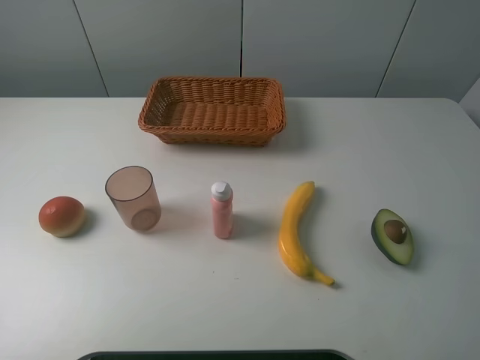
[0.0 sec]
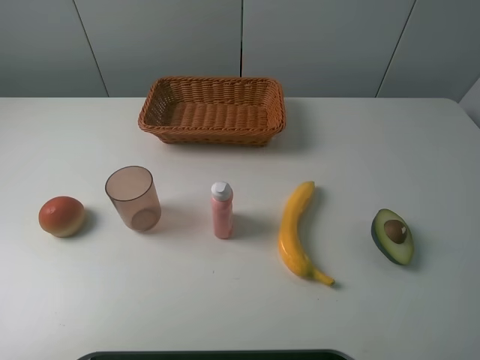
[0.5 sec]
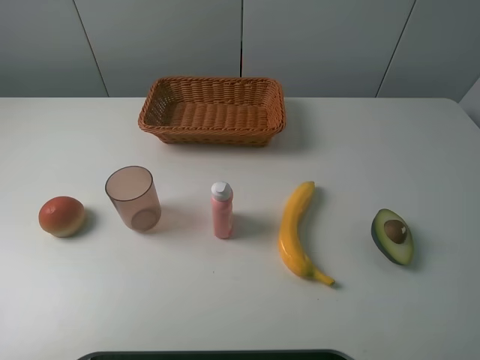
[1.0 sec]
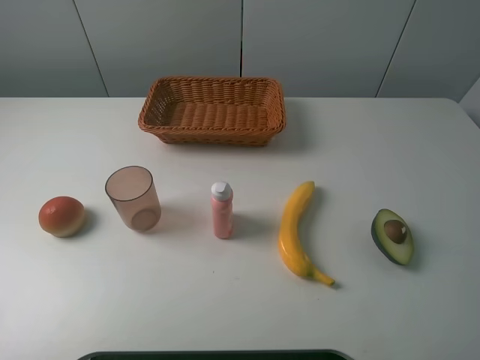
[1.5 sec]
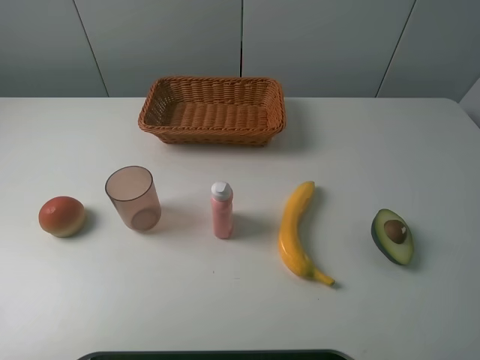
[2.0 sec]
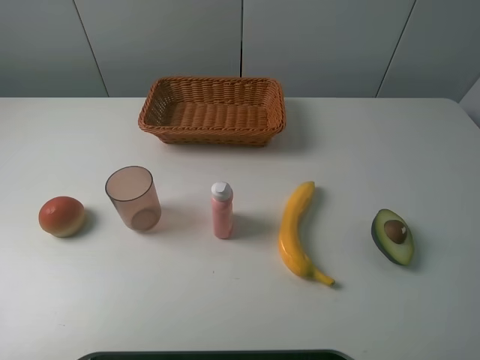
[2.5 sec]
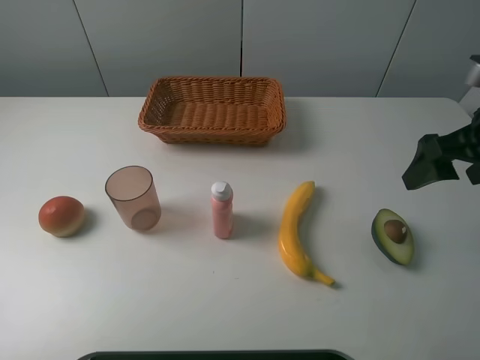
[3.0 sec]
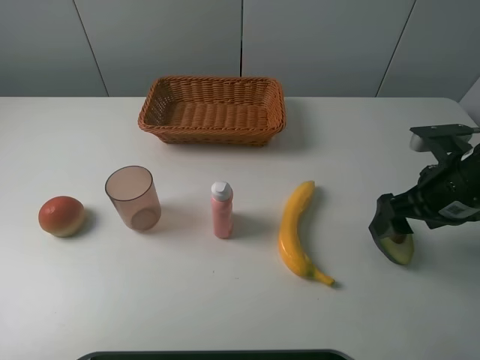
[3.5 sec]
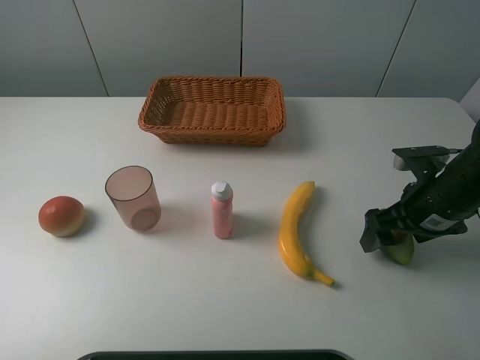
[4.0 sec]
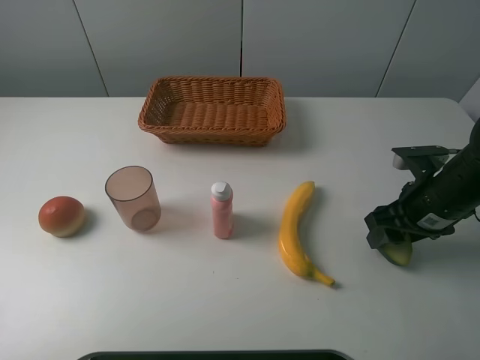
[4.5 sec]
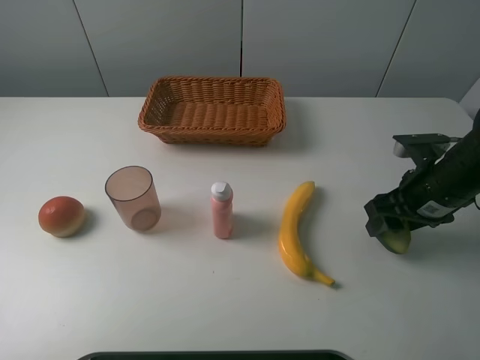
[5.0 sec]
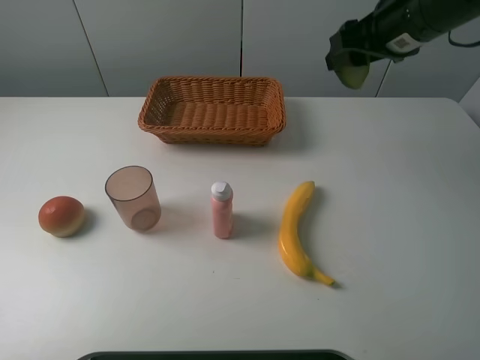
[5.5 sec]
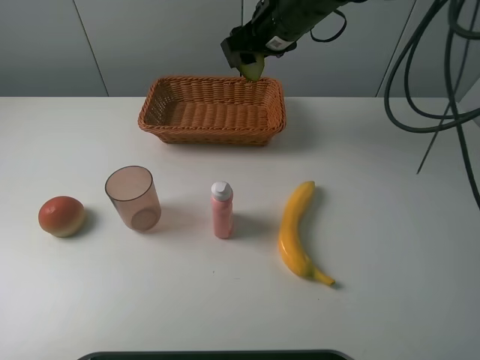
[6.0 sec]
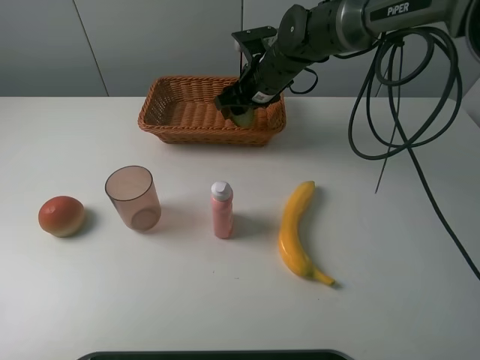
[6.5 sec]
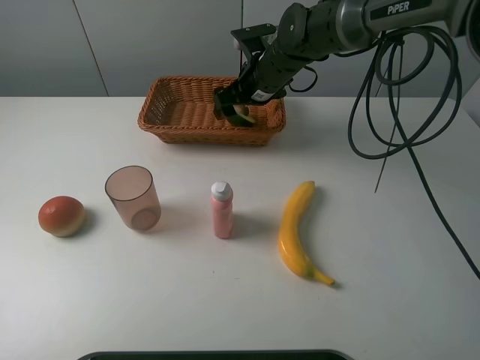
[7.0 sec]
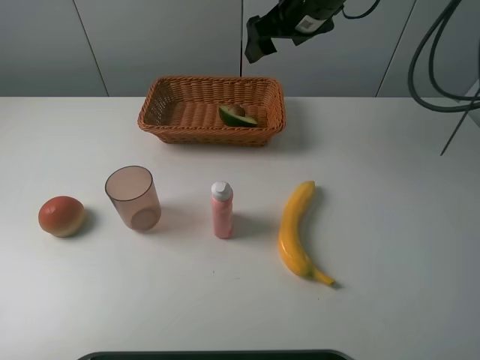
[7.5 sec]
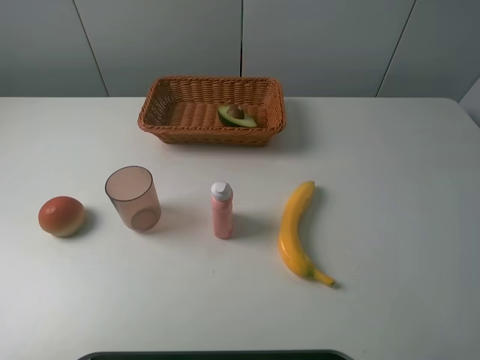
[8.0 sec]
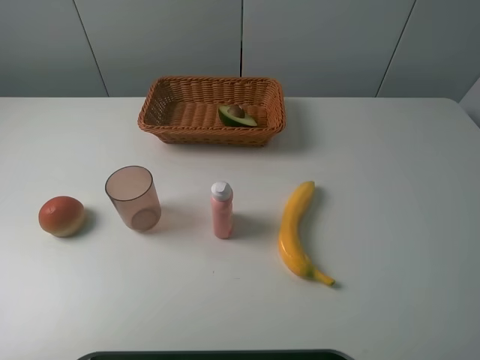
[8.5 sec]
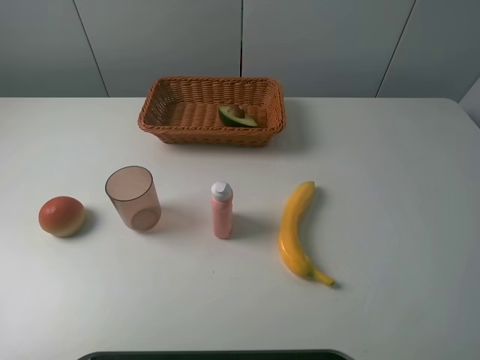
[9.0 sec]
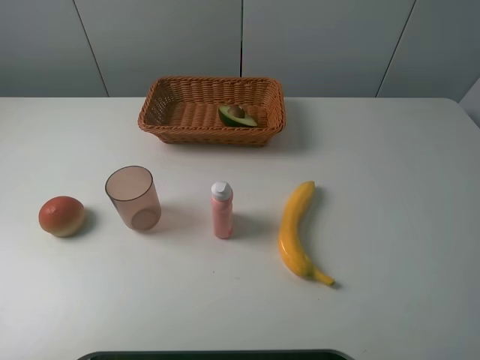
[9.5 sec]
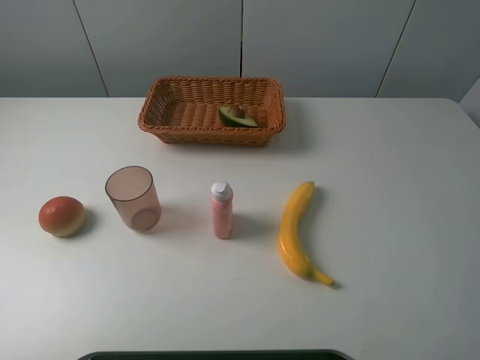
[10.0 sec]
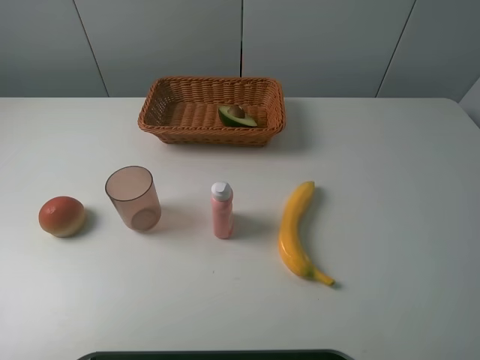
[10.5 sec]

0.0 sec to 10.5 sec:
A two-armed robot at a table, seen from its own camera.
Task of the whole recording: randomly pick up an item from the table and put it in the basket.
Step, 0.0 sec to 4.5 sec: Grasp the avocado with the right gripper.
Step, 5.0 sec to 7.5 sec: Place the avocado into the basket with the right gripper.
0.0 sec to 2.0 sec: Neither gripper changes place.
2.0 sec to 4.0 sec: The right gripper heads forward and downward, covering about 30 cm.
4.0 sec to 6.5 sec: The right gripper goes roughly 30 cm forward and to the left, and closes up.
6.5 sec to 8.5 sec: The right gripper is displaced backward, upward and to the right by roughly 50 cm, and opens up.
